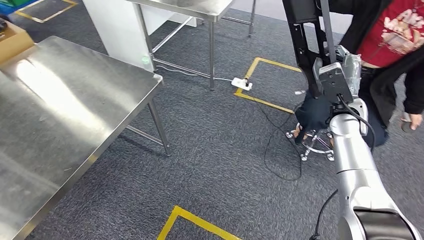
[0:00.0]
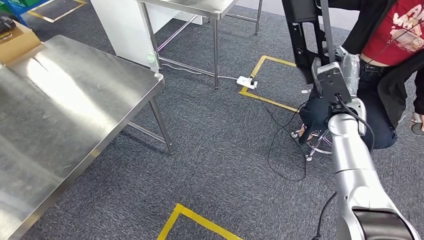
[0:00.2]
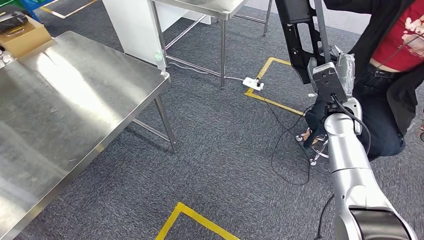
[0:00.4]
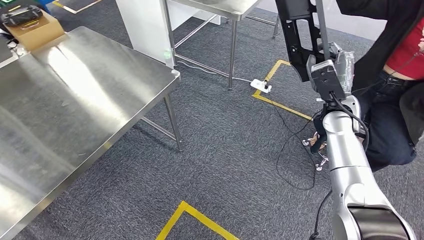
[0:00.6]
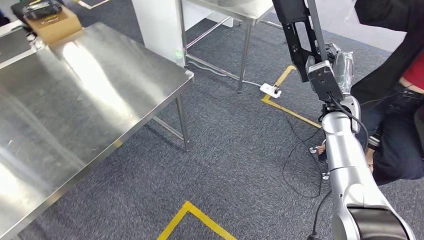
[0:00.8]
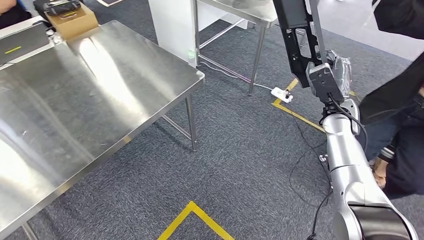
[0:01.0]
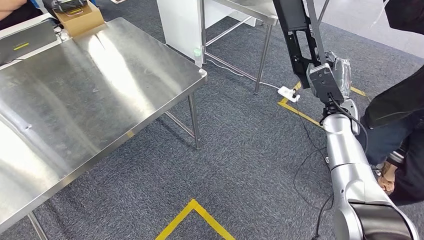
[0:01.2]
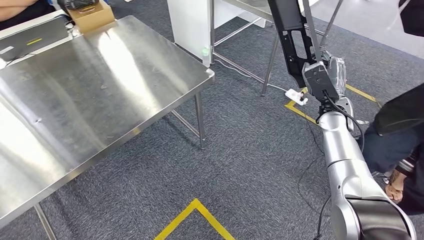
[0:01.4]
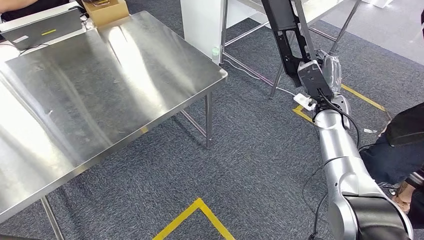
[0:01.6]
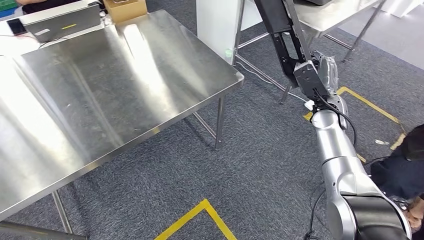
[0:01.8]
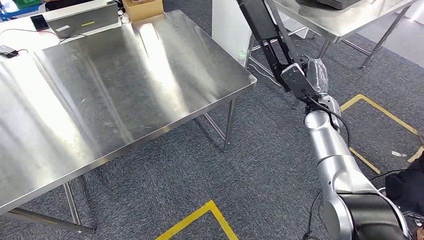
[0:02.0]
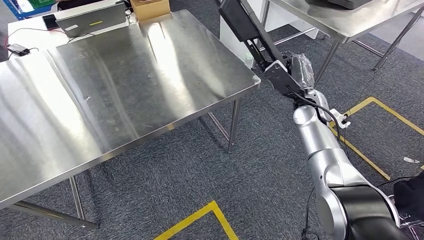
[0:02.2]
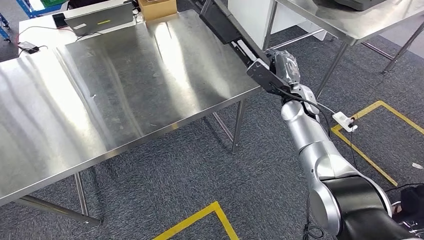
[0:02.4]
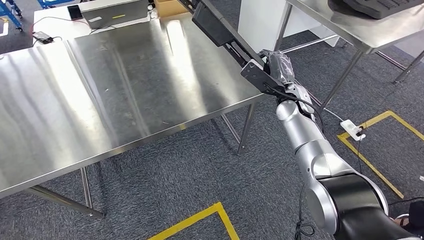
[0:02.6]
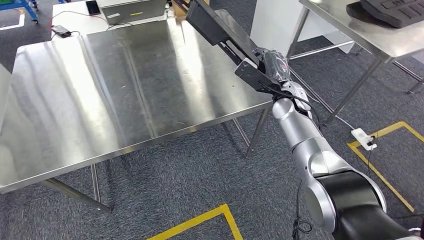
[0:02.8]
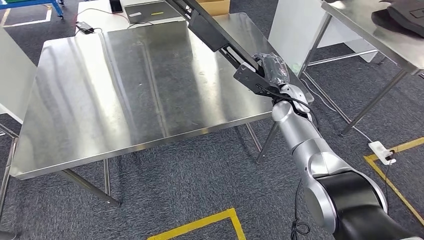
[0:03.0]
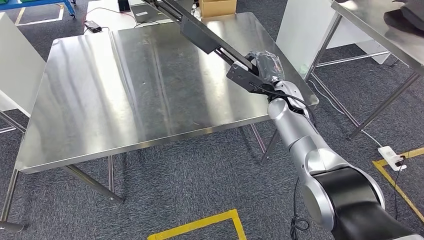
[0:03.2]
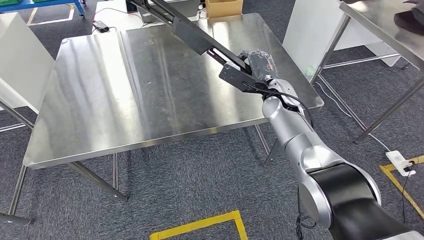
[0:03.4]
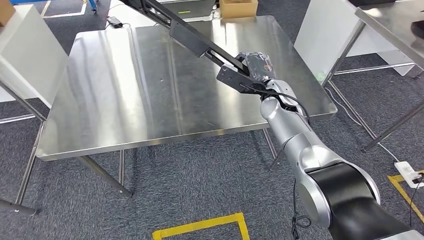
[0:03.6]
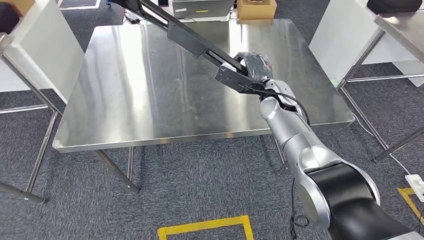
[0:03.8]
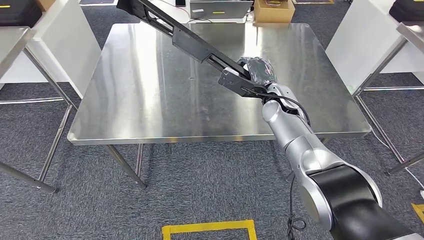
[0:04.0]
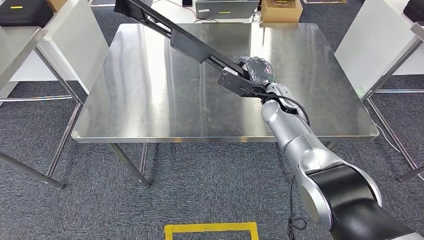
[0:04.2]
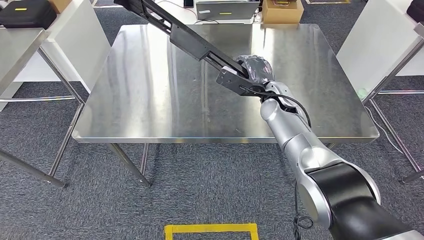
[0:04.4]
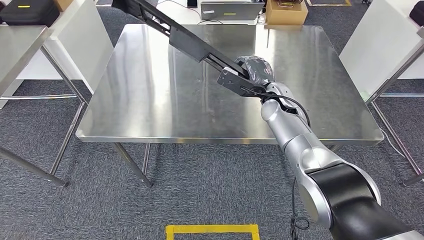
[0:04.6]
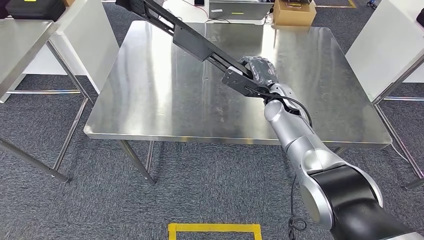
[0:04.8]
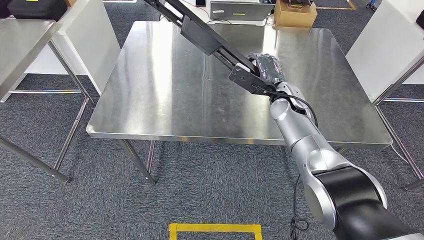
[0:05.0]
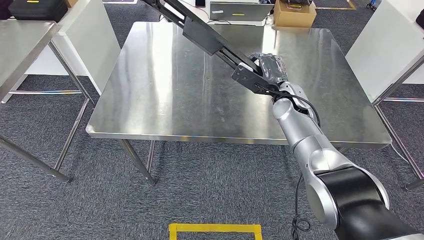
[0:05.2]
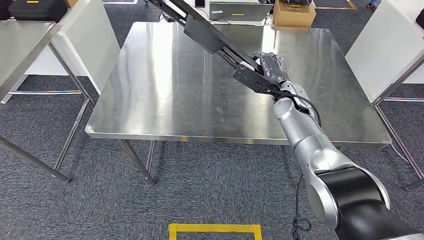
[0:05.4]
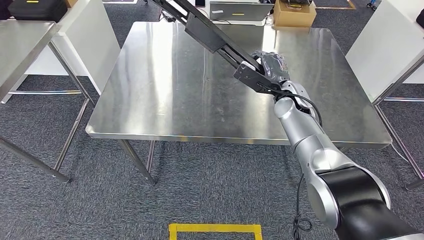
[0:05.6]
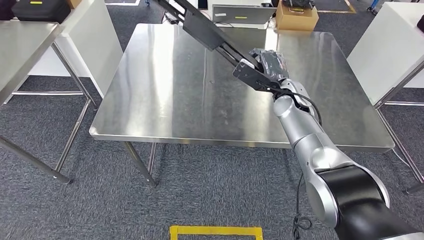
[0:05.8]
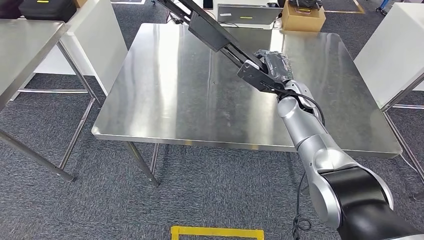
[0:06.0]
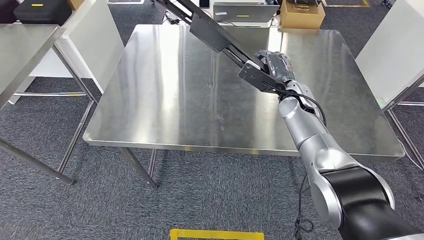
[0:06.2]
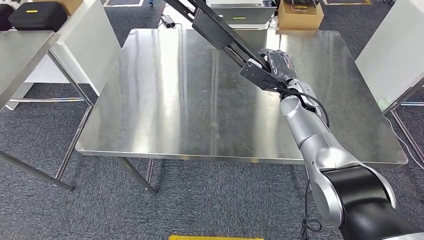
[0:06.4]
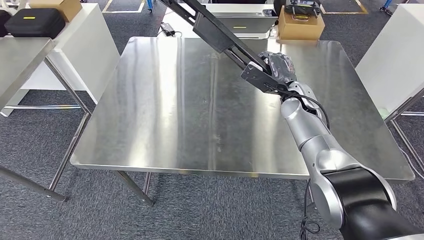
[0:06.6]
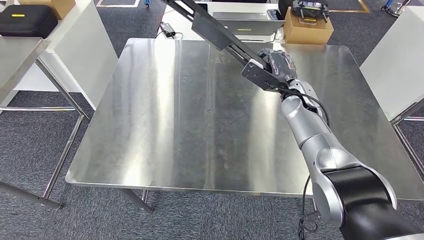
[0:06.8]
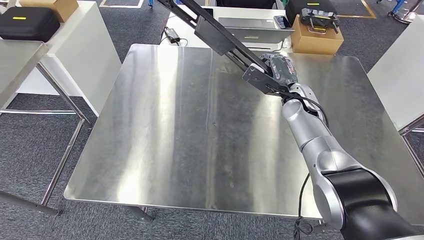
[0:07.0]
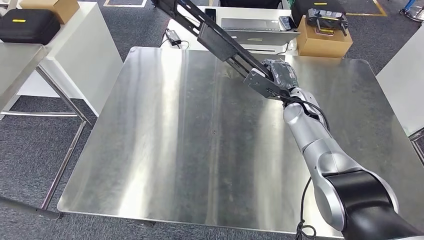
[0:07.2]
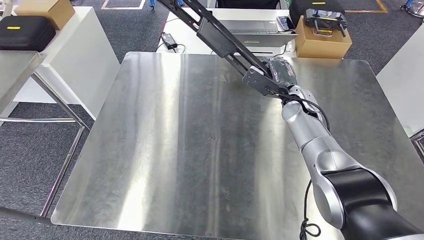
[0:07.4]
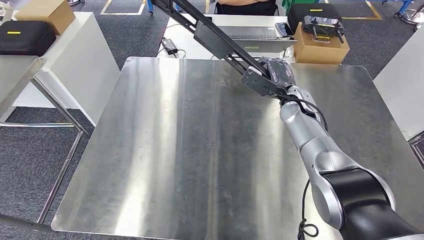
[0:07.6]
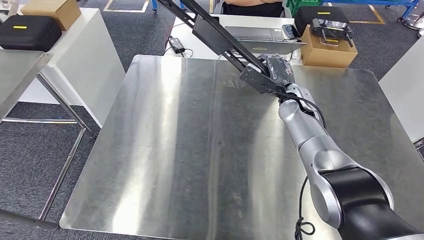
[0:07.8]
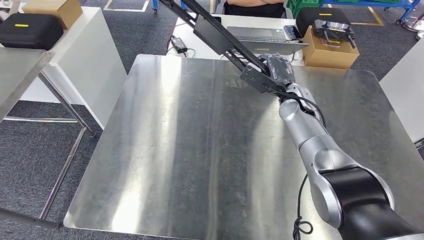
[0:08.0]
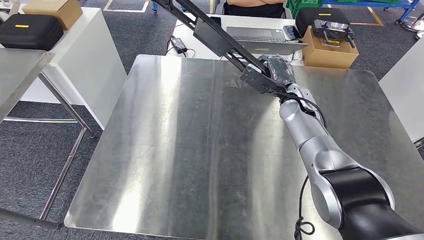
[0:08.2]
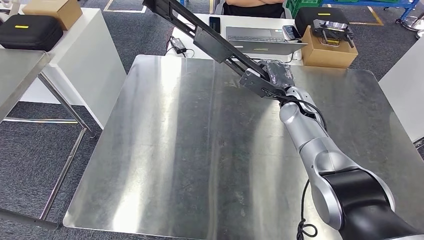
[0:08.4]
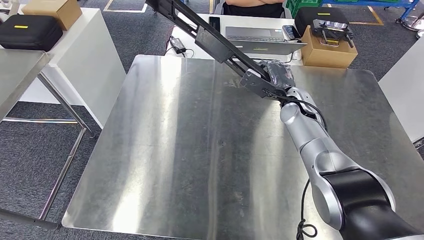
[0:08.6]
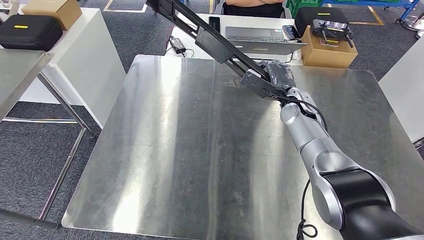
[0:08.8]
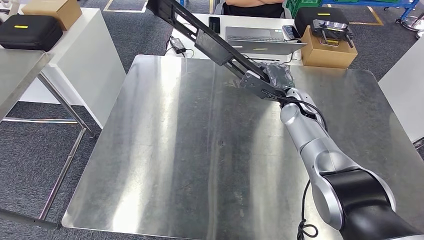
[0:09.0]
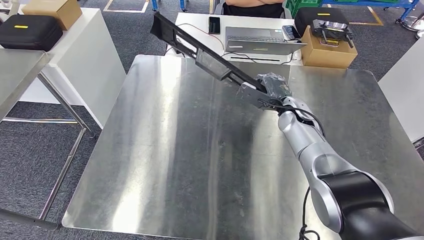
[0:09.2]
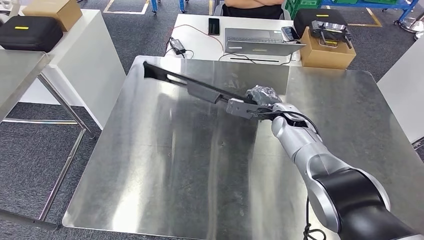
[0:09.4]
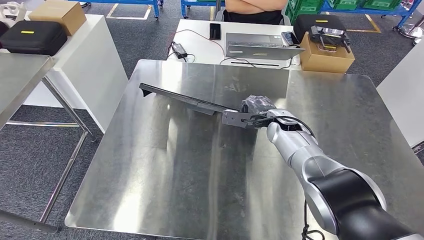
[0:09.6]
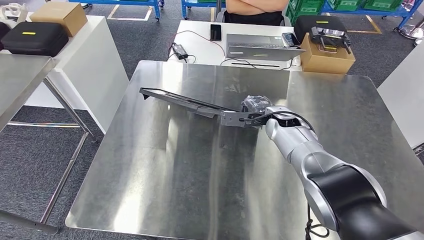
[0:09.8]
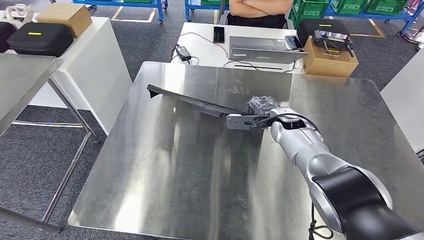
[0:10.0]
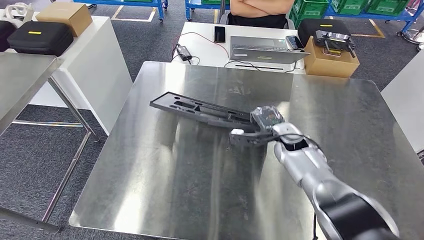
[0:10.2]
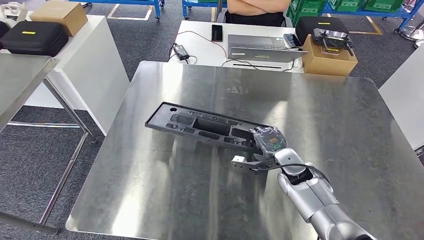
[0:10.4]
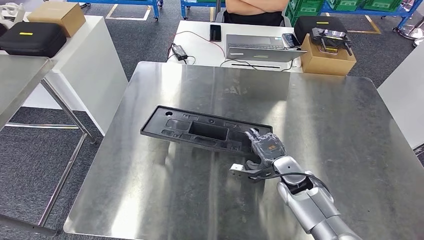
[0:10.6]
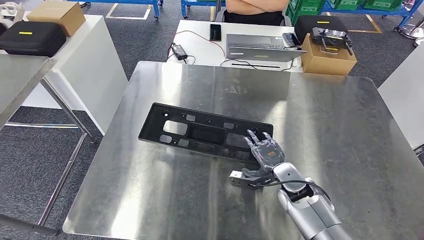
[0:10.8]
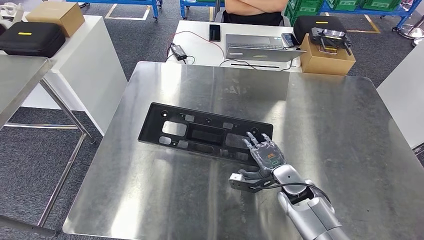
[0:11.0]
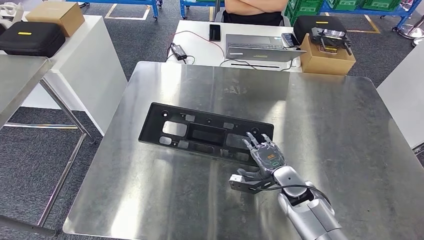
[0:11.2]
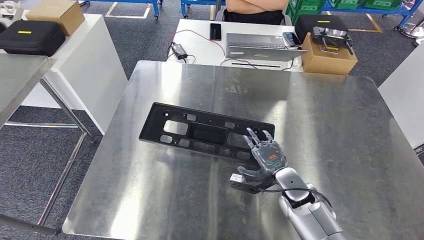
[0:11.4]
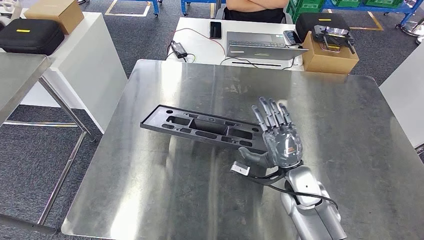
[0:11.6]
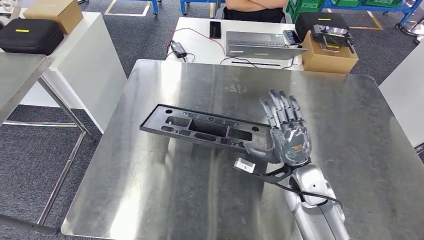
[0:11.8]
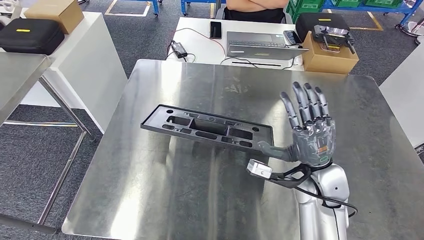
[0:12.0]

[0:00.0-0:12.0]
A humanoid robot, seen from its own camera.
Step, 0:00.0 to 0:02.8: Move the large material to the workbench.
0:07.6 to 0:09.0: Neither hand changes place.

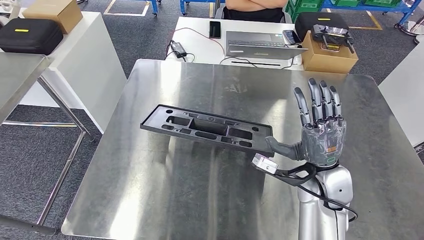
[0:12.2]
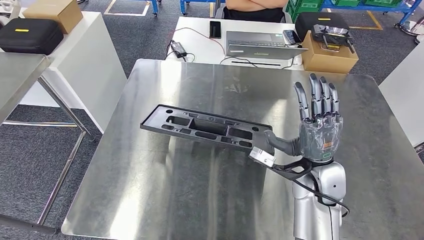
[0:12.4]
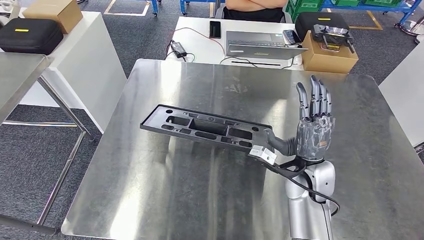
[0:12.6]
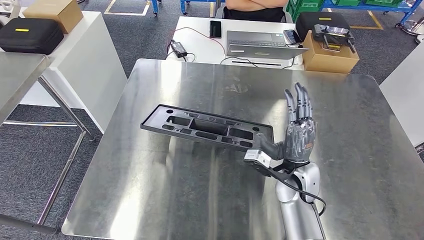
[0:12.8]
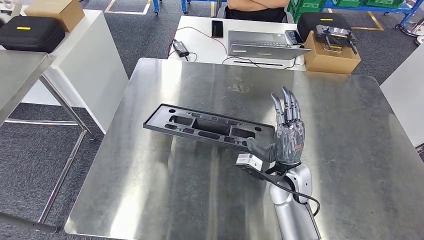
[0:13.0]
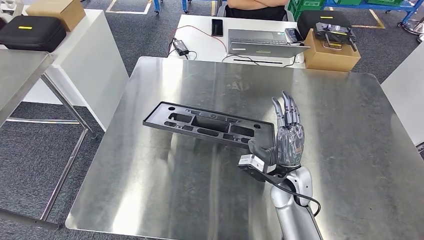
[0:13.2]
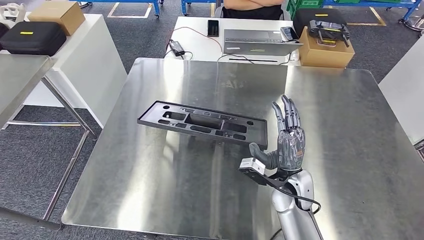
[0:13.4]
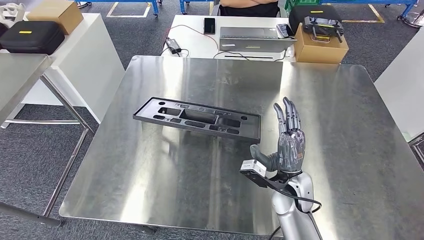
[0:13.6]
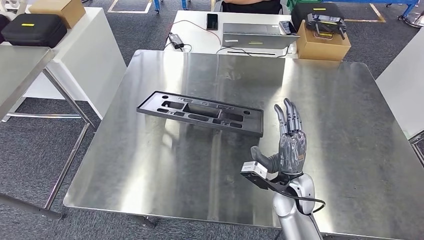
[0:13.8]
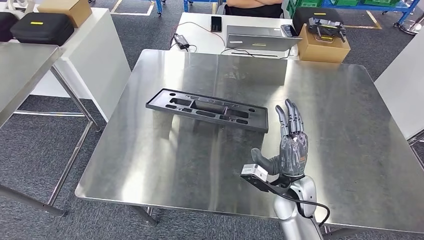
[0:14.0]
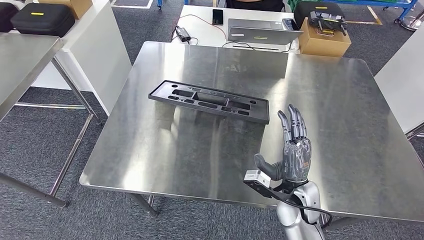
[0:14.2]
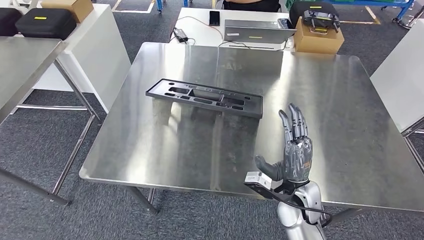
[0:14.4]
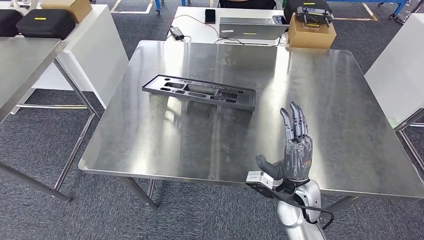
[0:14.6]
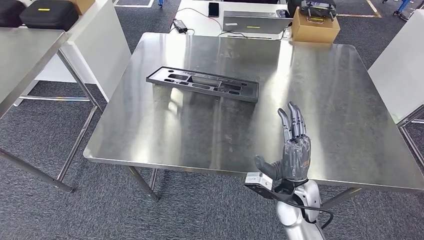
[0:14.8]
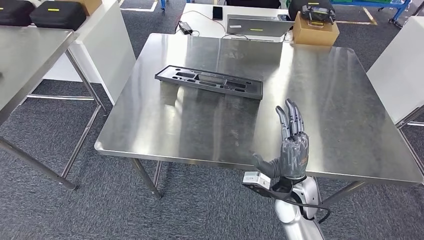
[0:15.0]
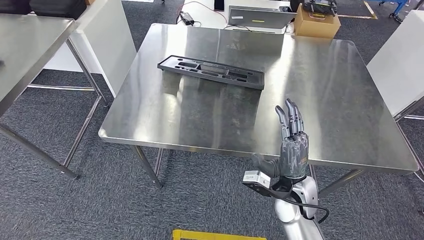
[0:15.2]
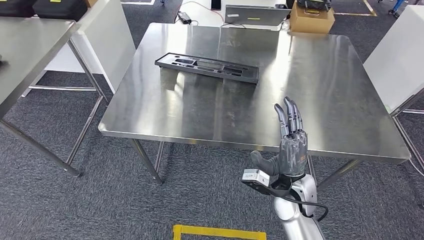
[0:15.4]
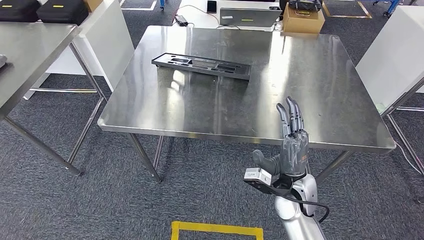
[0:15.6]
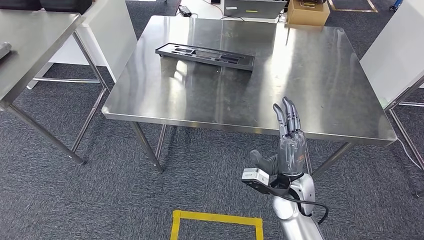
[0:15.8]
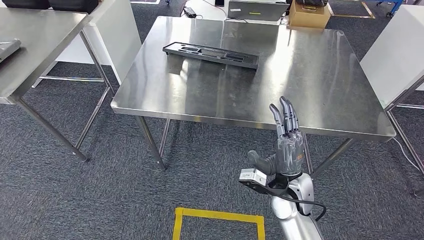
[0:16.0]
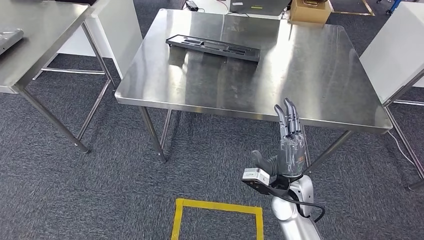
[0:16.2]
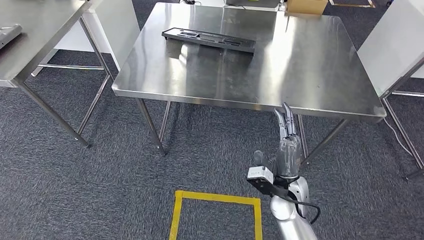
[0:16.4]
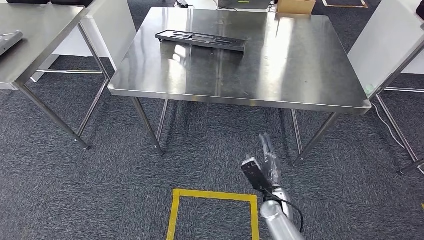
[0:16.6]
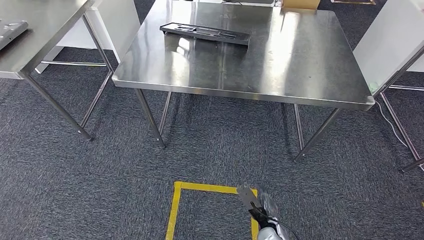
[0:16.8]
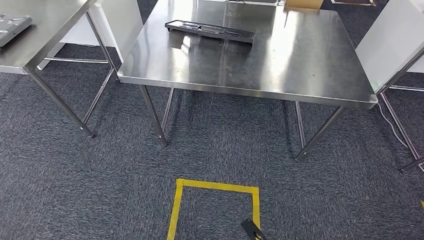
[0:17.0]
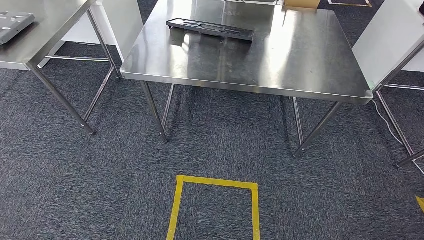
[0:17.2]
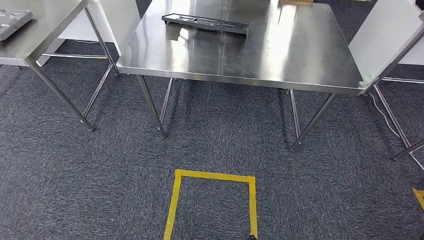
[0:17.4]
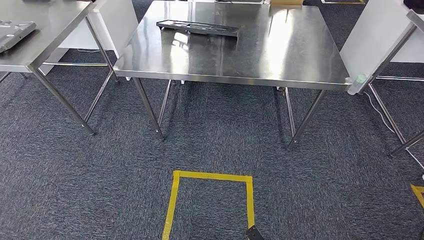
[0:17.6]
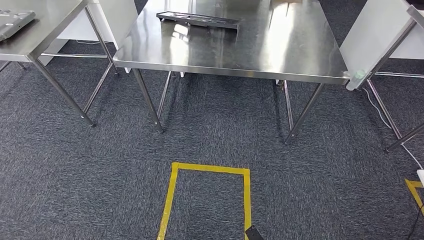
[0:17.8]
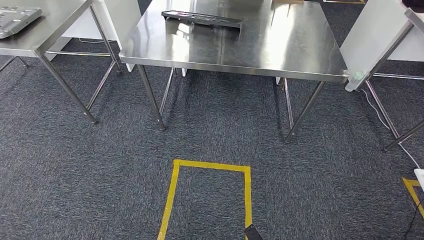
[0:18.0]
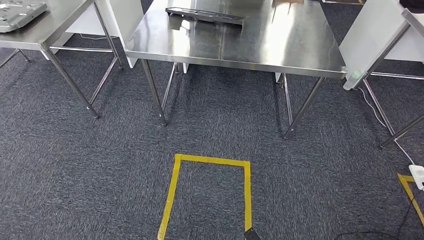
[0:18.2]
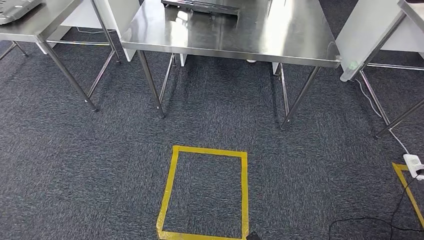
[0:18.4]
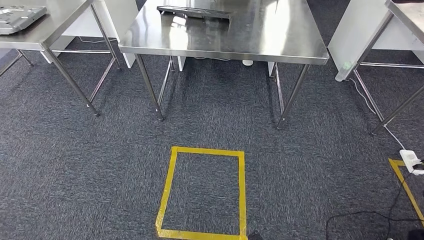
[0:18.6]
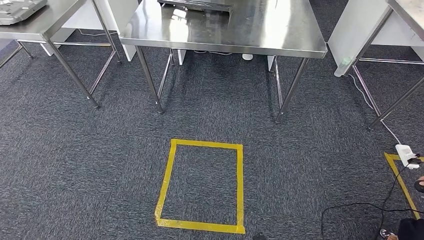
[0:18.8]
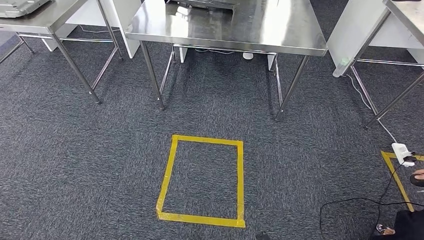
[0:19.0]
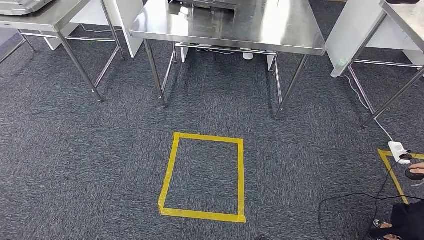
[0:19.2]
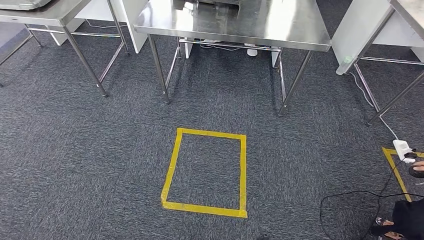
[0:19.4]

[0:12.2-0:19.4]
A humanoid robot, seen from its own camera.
Step, 0:12.2 to 0:18.2: Insert the large material into the corresponding slot on the workbench.
